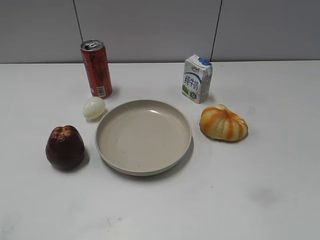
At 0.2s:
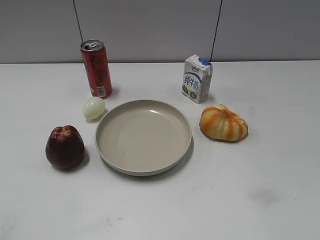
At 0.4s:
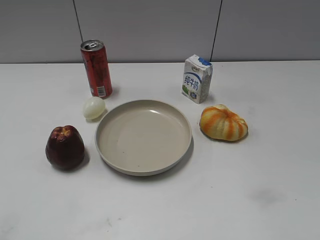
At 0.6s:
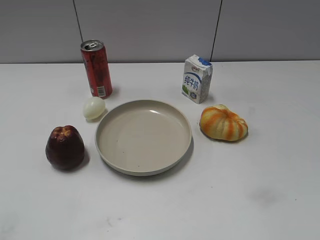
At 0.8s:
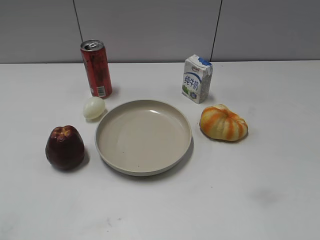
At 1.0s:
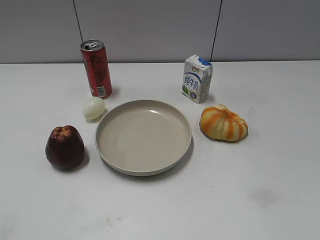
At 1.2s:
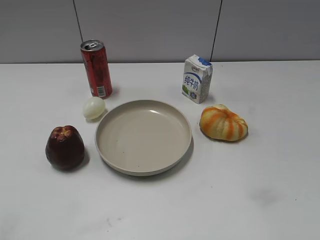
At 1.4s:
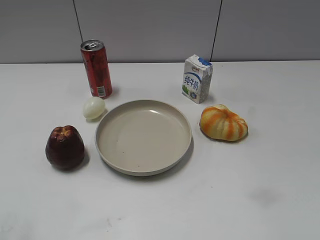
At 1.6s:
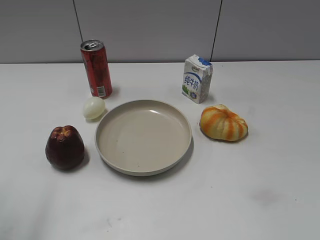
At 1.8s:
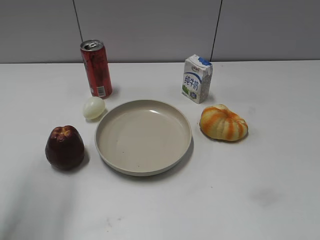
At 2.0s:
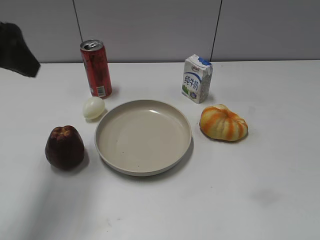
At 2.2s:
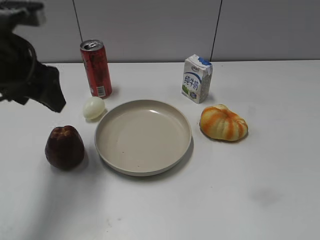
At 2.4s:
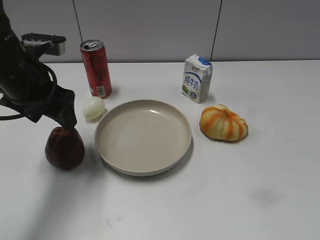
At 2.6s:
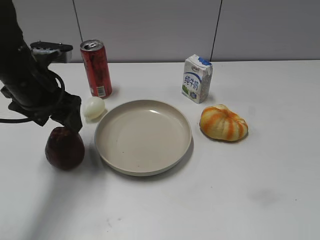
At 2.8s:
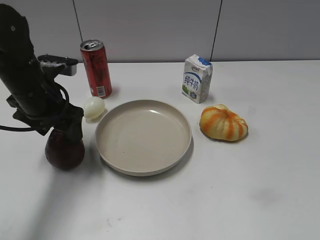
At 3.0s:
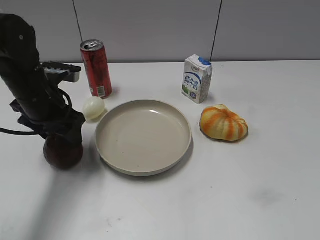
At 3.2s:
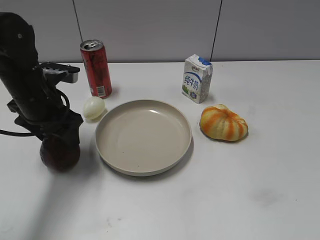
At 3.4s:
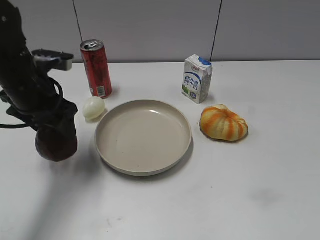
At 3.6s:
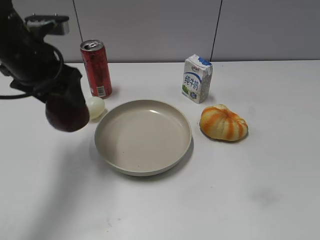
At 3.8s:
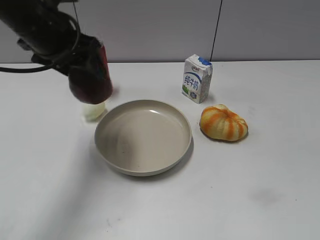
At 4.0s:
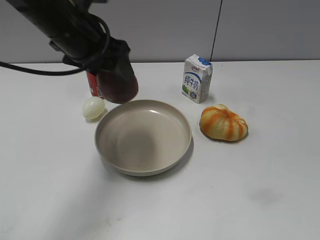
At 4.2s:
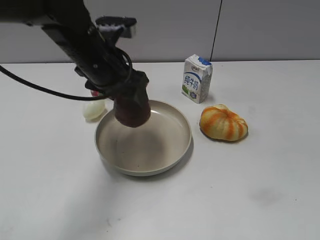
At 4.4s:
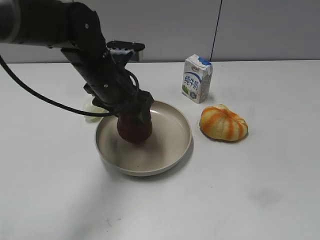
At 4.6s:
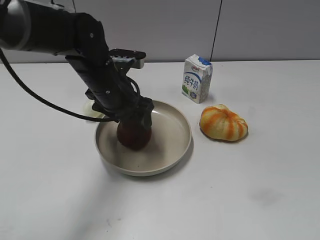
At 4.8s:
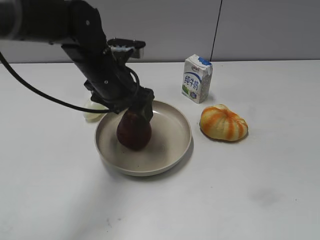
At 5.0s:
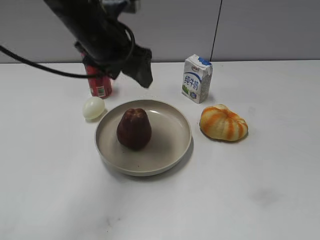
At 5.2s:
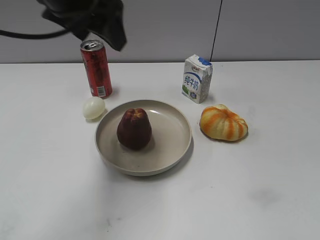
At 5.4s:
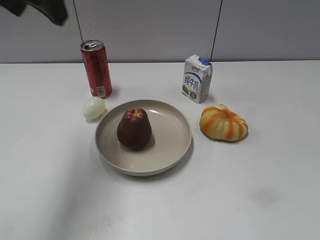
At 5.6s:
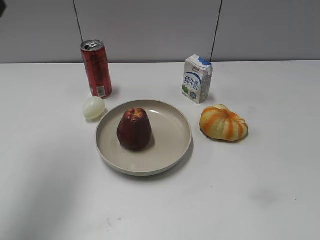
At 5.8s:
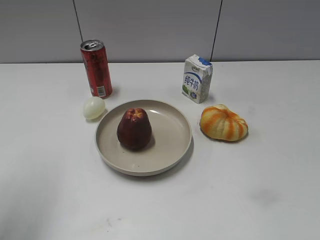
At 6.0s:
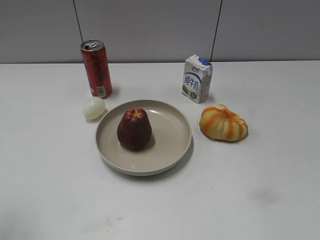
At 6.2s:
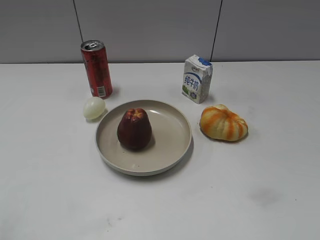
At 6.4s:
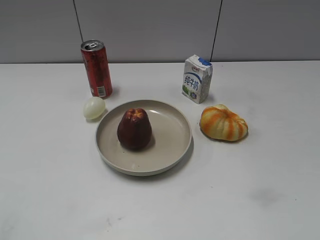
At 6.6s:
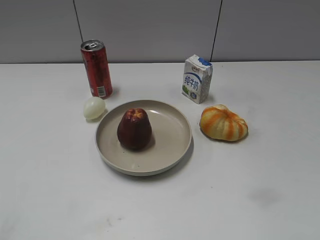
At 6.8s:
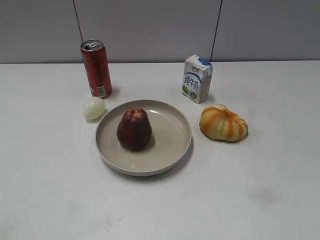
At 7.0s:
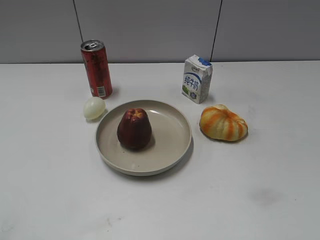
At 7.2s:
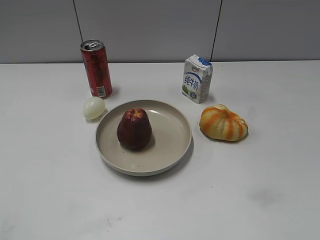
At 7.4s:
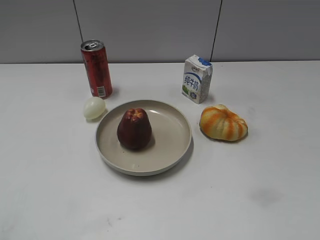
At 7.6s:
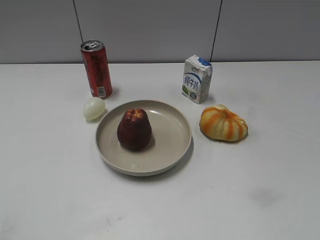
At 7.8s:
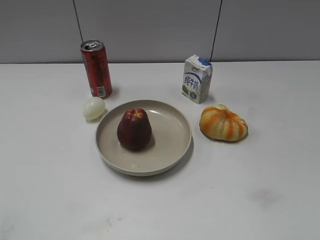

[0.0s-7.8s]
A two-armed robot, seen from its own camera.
Step, 1.2s to 2.8s: Grasp the apple with left gripper.
Step, 3.2s to 4.8s: Place the apple on the plate with left gripper.
1.6s to 3.2s: The left gripper goes some 30 cm downward, forward and to the right, and closes its fingers.
3.2s to 4.6s: The left gripper shifts some 10 cm to the right, goes upward and returns, about 10 cm each way, and opens up.
4.6s to 6.2s: The left gripper goes roughly 40 cm backward, to the left and upward, and closes up.
